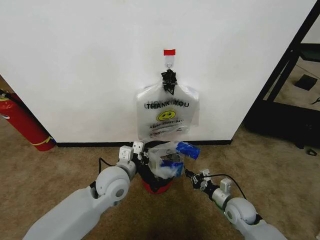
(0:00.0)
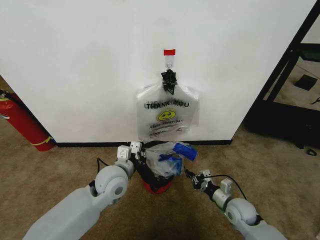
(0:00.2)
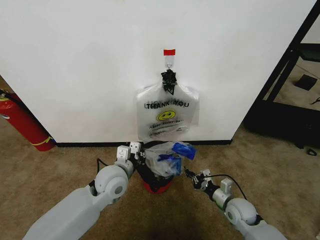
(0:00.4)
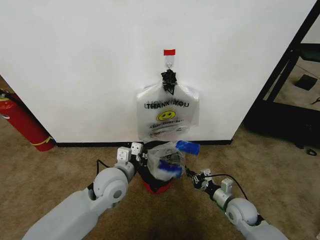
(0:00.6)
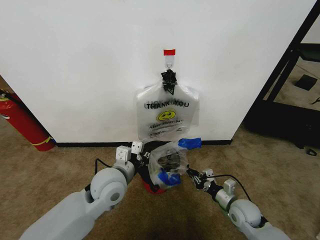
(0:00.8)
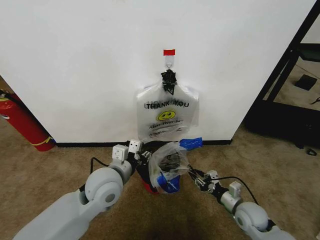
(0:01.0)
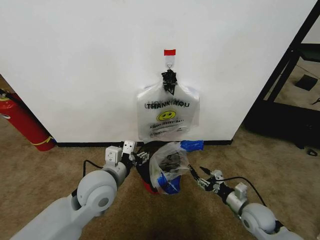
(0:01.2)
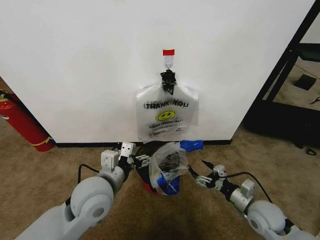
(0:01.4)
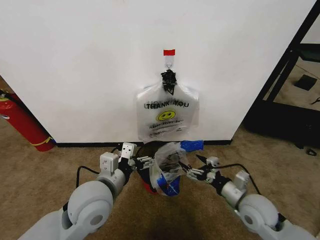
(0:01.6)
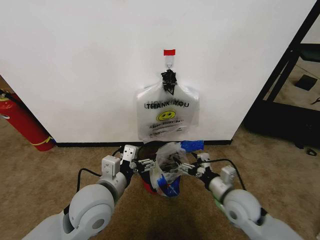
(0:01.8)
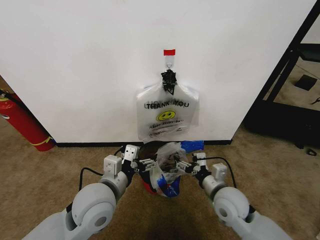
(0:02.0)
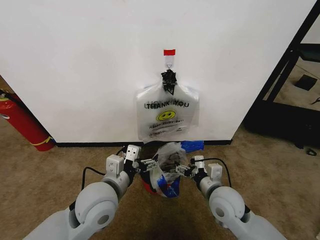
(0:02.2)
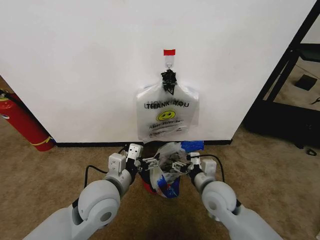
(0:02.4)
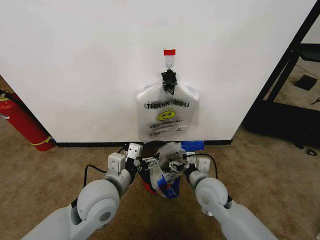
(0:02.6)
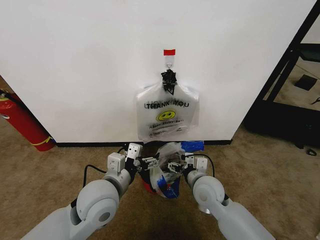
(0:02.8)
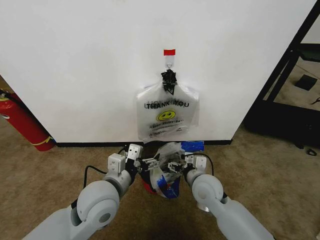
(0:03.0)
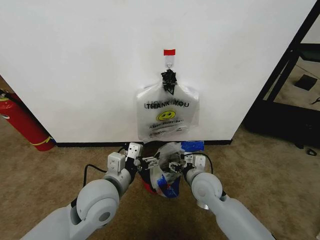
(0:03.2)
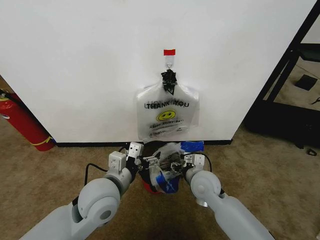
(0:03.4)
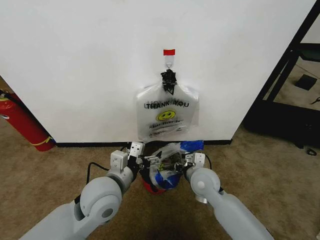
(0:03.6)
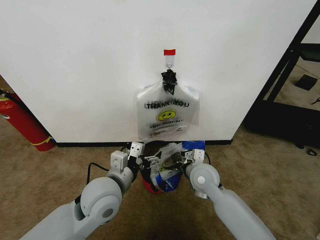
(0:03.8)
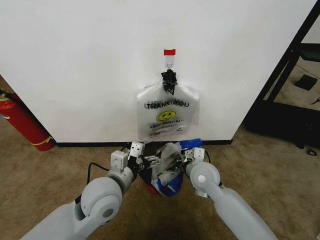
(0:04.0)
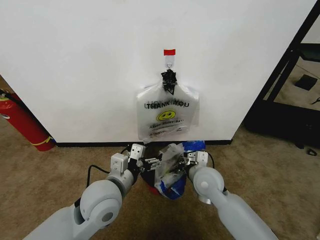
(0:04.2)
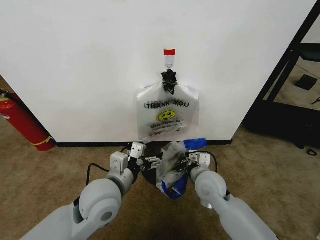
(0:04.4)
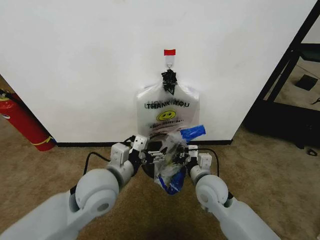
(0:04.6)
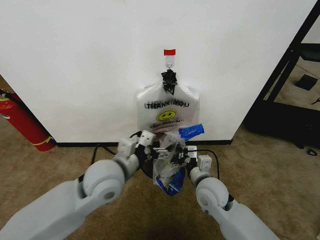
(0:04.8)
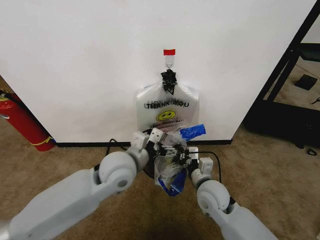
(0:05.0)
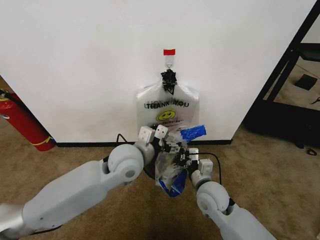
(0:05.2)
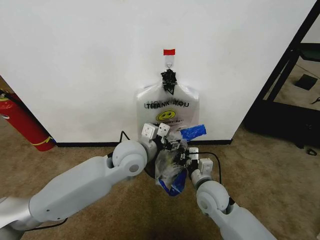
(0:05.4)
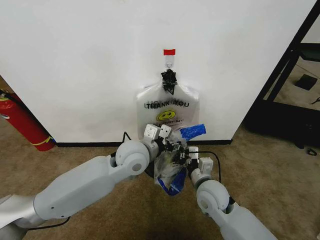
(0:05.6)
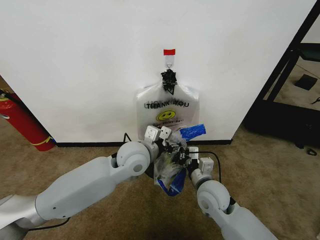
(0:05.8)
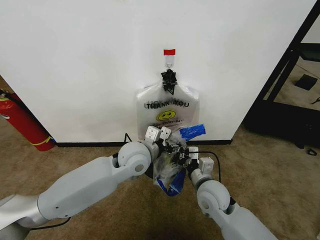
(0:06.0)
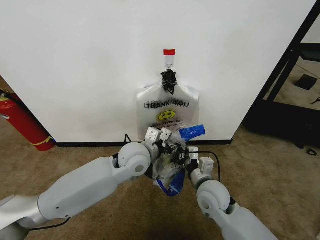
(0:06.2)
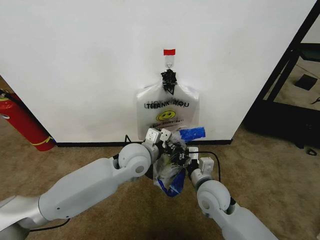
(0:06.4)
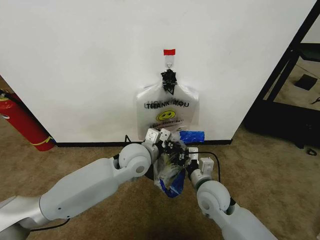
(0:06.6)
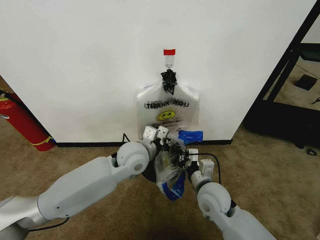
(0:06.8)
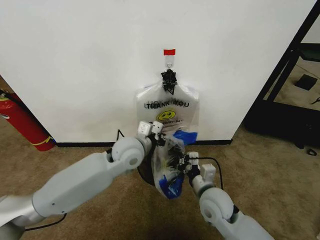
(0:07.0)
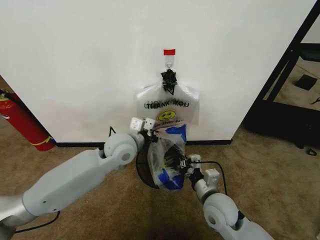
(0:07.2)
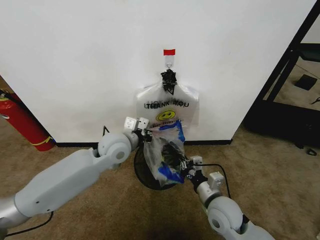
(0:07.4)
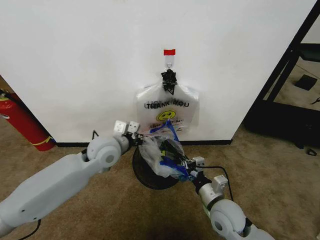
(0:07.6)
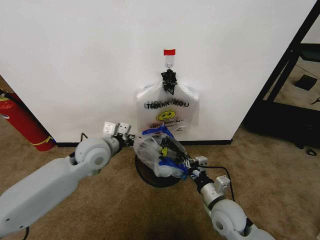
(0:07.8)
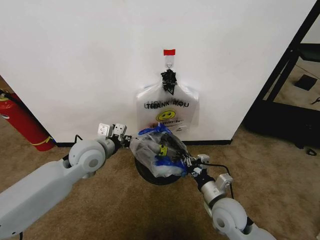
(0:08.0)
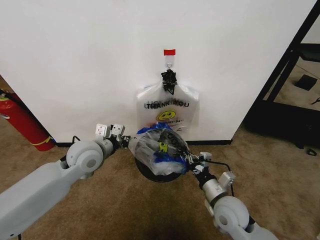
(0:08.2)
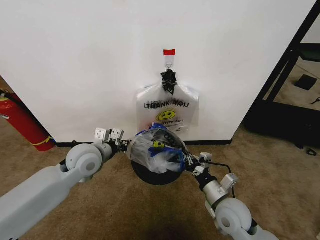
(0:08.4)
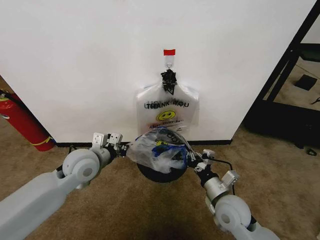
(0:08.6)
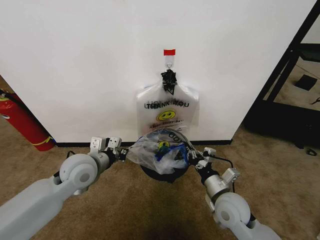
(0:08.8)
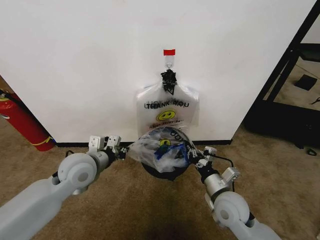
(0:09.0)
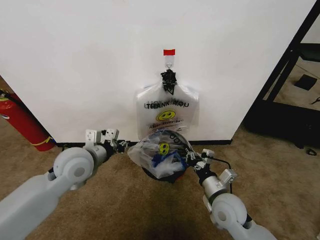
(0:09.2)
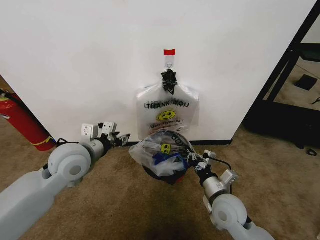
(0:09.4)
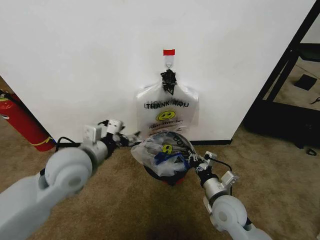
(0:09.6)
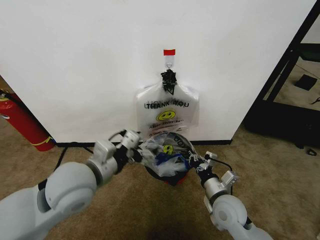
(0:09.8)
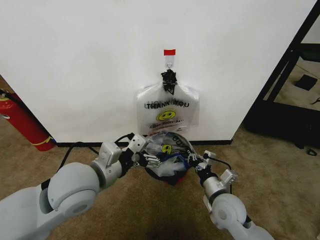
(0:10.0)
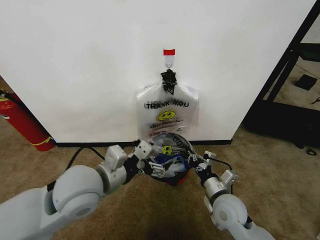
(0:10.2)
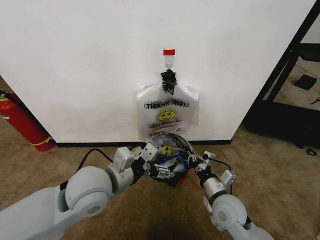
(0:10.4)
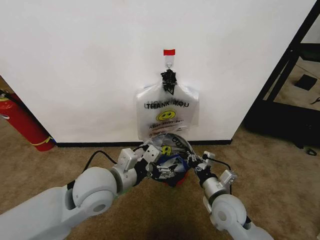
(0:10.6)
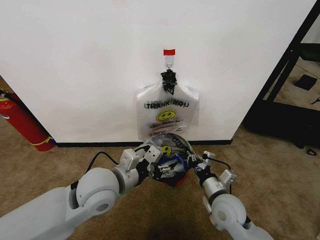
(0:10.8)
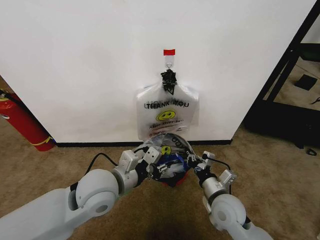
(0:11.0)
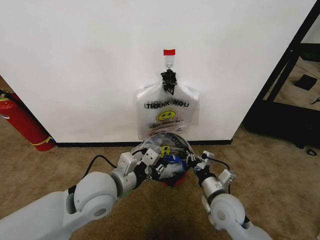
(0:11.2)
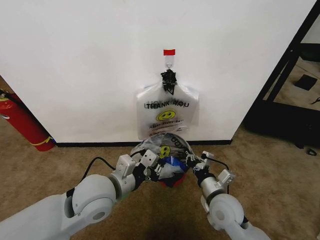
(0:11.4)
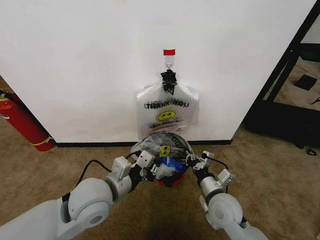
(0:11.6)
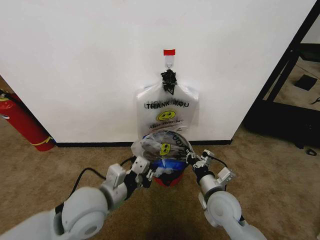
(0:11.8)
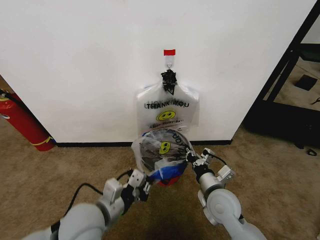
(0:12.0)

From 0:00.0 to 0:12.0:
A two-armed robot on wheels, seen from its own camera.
Task of the whole recording: Pick up the garbage bag from the wall and place it over the trash bin.
From 0:00.0 to 0:01.6: The right gripper goes some 10 cm upward, and opens its fingers, while the left gripper is displaced backward and upward by about 10 cm, and opens.
From 0:01.6 to 0:03.0: The right gripper heads to the left and forward, covering about 15 cm.
From 0:03.0 to 0:04.4: The right gripper closes its fingers.
From 0:04.4 to 0:06.0: The left gripper shifts some 15 cm forward and to the right.
From 0:06.0 to 0:07.6: The left gripper moves to the left, some 10 cm, and closes its fingers; the right gripper moves approximately 5 cm.
From 0:07.6 to 0:09.0: The left gripper moves to the left and backward, approximately 10 cm.
From 0:09.0 to 0:10.4: The left gripper travels backward and to the right by some 10 cm, and opens.
From 0:10.4 to 0:12.0: The left gripper heads downward and backward, covering approximately 10 cm, and closes its fingers.

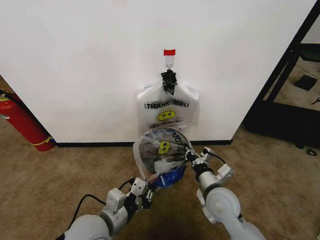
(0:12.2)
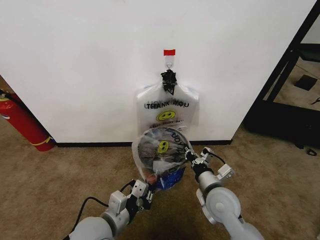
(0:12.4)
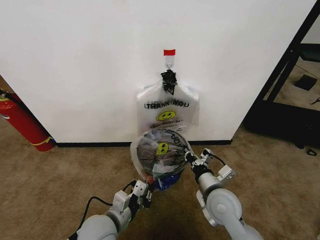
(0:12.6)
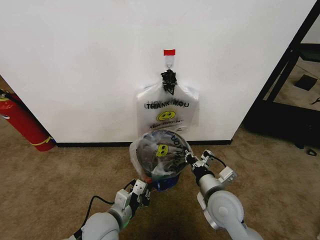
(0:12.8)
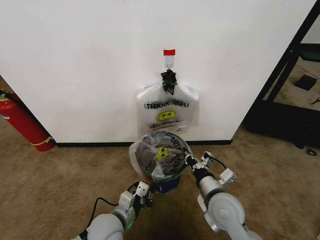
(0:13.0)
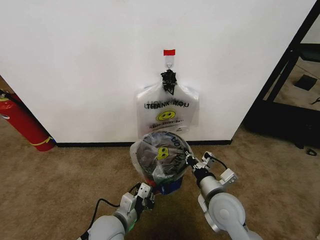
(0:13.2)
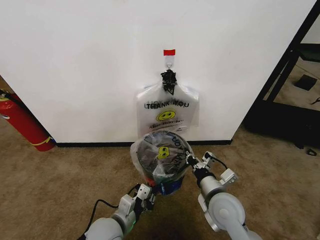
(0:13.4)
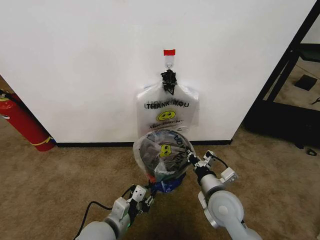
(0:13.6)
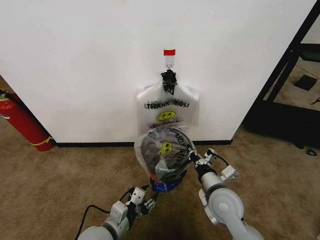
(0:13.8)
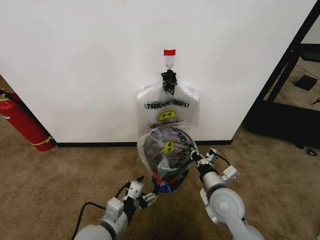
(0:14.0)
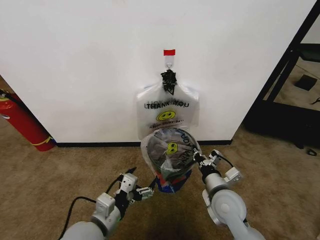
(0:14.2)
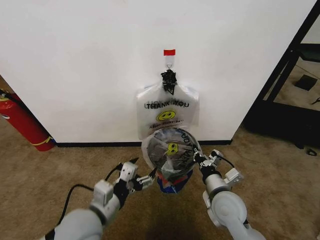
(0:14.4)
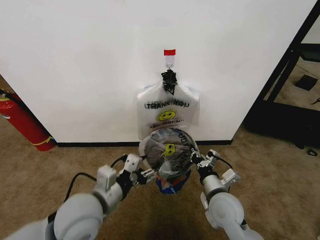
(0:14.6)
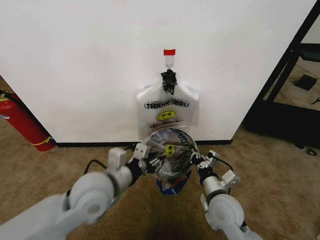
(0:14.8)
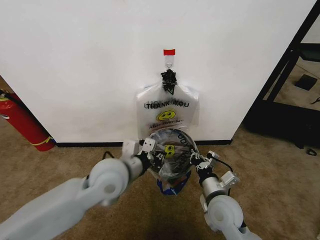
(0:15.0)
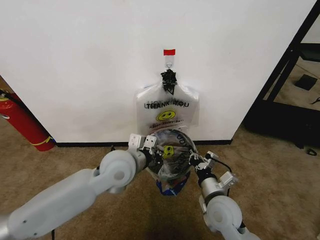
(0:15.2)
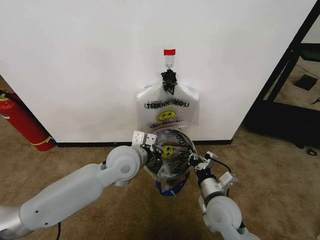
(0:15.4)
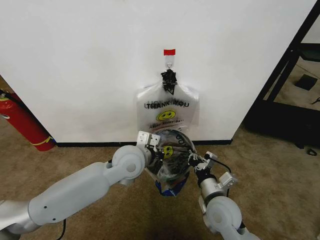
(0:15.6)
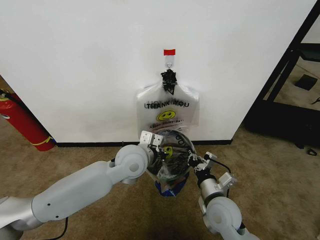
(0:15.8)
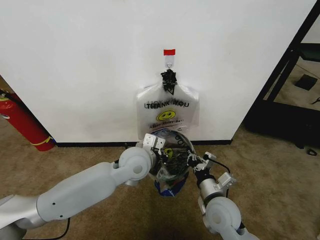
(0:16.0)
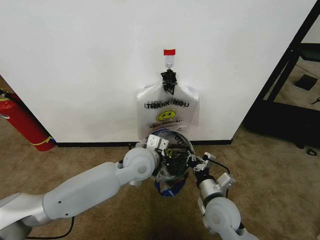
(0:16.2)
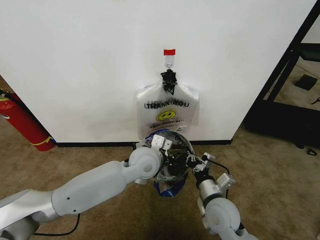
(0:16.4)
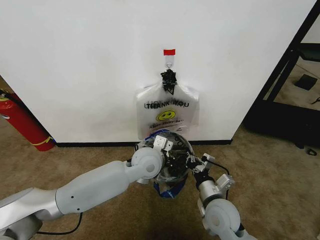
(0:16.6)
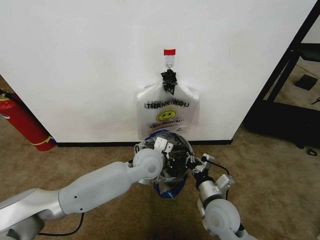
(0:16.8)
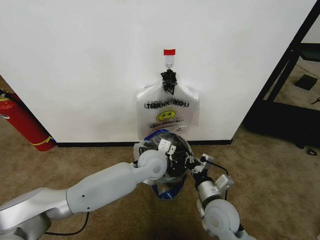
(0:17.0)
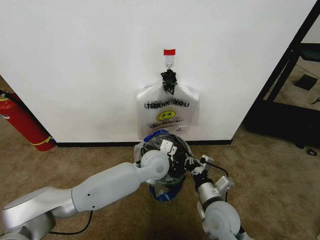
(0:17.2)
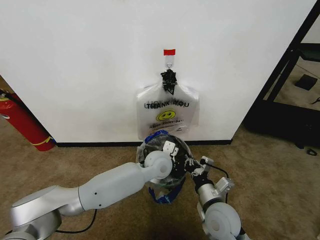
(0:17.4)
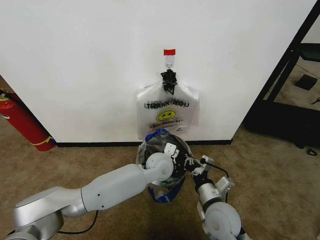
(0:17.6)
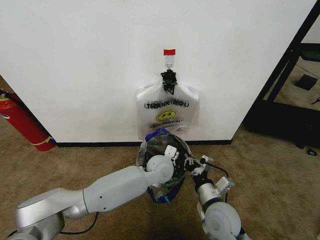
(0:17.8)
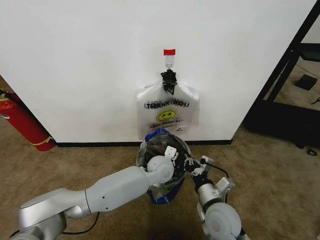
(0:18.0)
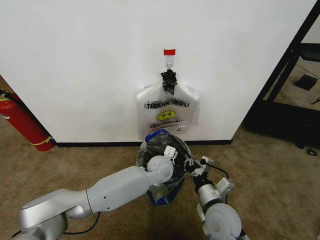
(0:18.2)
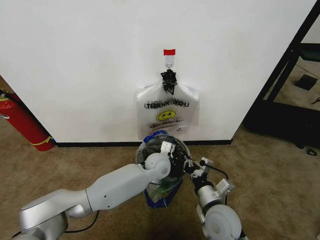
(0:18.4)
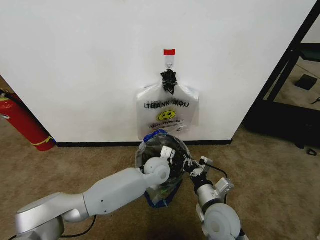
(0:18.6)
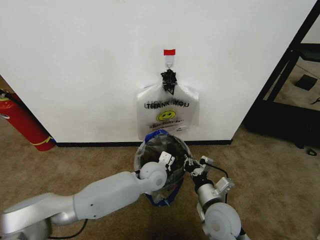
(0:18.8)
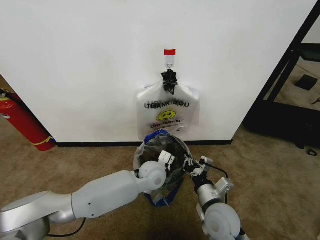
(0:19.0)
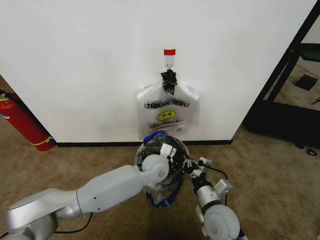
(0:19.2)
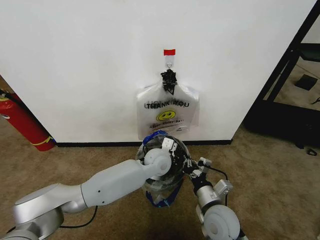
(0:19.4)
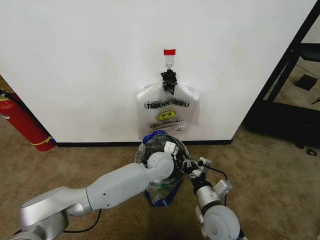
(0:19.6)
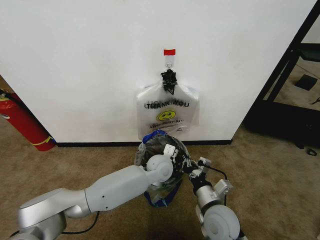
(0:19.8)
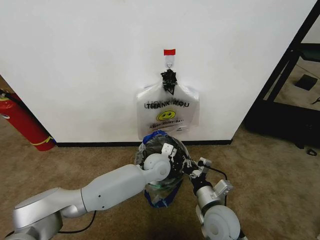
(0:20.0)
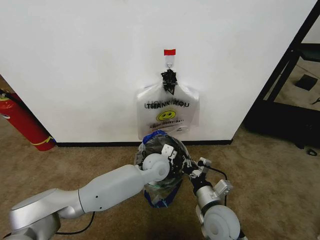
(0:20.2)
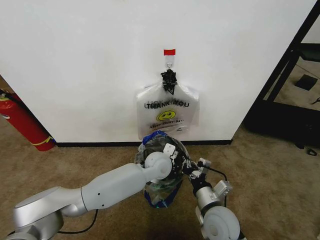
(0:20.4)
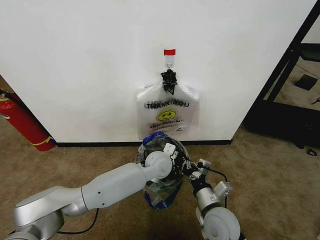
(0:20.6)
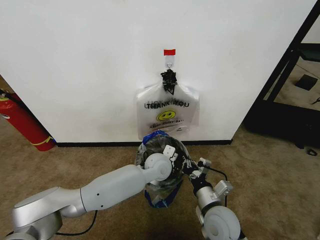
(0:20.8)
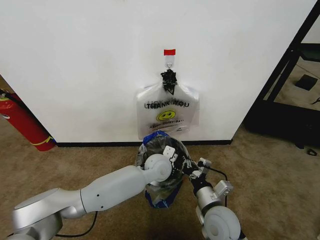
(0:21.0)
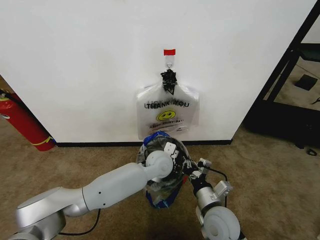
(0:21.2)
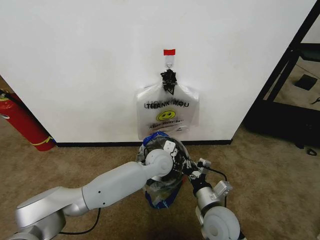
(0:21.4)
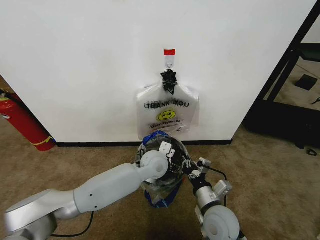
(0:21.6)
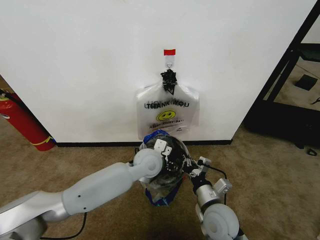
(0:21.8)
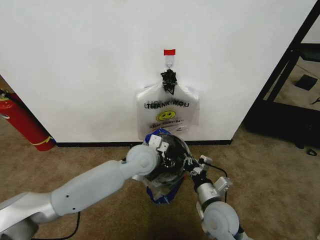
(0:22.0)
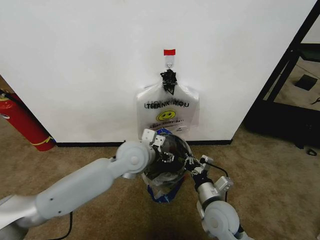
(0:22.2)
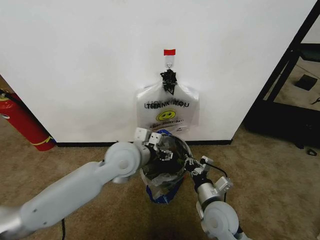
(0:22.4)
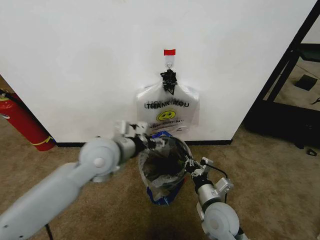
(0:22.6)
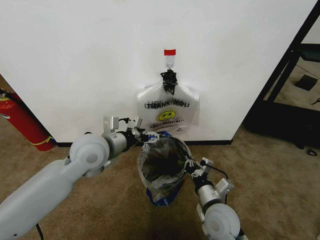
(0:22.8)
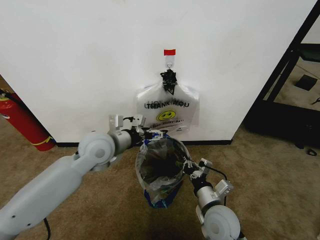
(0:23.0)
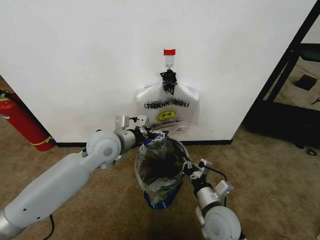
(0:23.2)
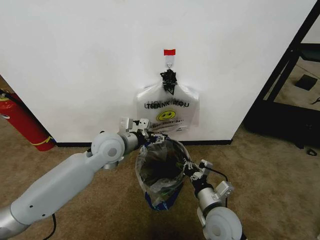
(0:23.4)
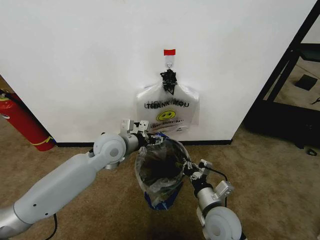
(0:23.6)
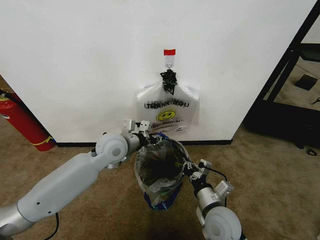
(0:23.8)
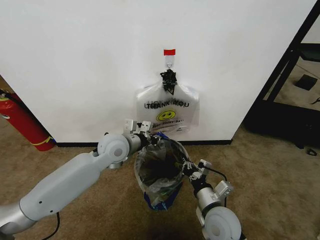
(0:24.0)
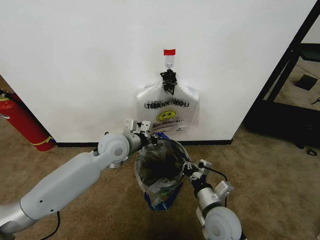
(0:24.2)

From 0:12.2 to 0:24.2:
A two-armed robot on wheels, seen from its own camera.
Task of the whole recording: Pick up the garbage bag from the wall and place it over the trash bin.
From 0:12.2 to 0:13.8: The left gripper heads downward, covering roughly 5 cm, and opens its fingers.
From 0:13.8 to 0:15.2: The left gripper moves forward and upward, about 20 cm, and closes up.
From 0:15.2 to 0:16.6: The left gripper heads to the right, covering about 5 cm.
From 0:16.6 to 0:18.2: The left gripper heads downward, covering roughly 10 cm.
From 0:18.2 to 0:19.8: The grippers move only a little.
From 0:19.8 to 0:21.2: The left gripper opens its fingers.
From 0:21.2 to 0:22.6: The left gripper shifts approximately 20 cm upward, to the left and backward.
From 0:22.6 to 0:24.2: The left gripper heads forward, covering roughly 5 cm, and closes up.
